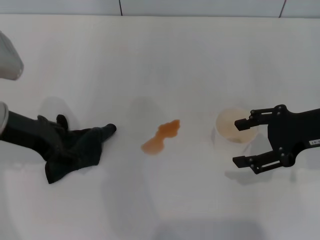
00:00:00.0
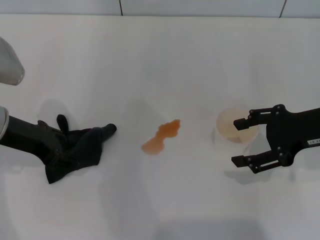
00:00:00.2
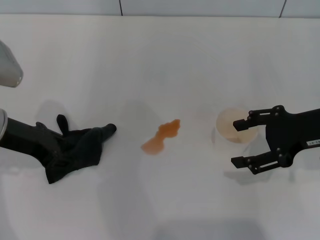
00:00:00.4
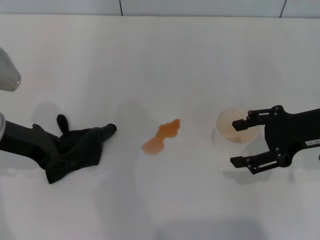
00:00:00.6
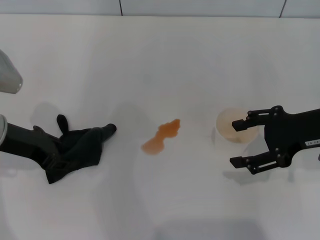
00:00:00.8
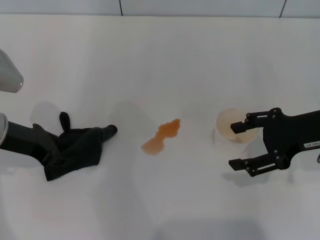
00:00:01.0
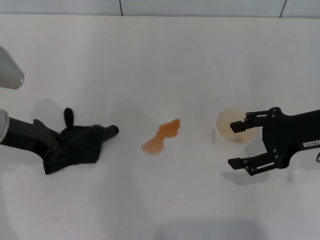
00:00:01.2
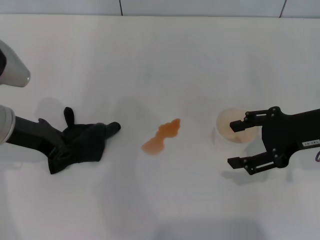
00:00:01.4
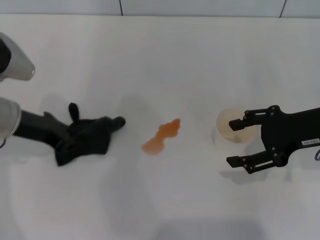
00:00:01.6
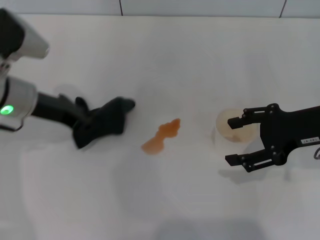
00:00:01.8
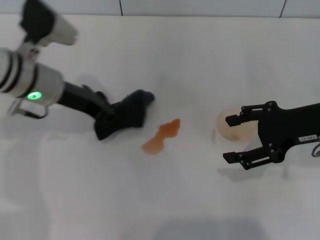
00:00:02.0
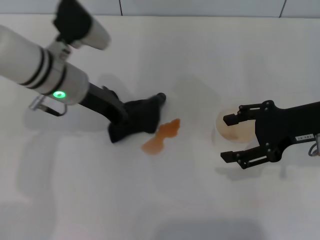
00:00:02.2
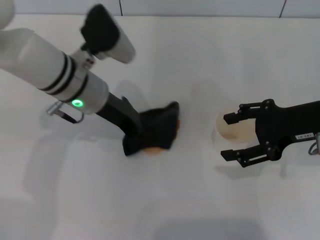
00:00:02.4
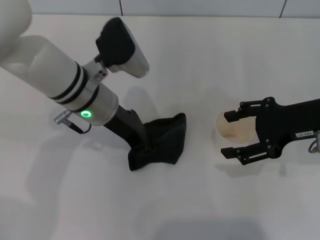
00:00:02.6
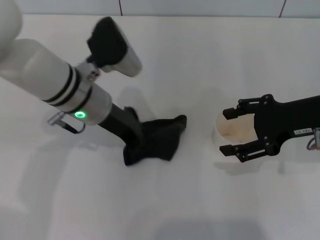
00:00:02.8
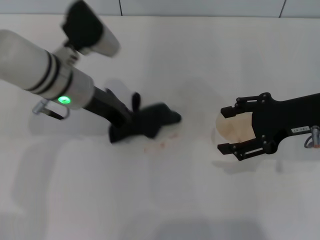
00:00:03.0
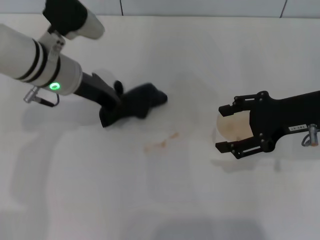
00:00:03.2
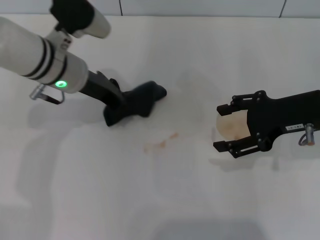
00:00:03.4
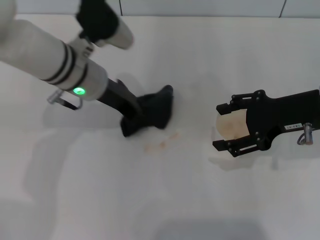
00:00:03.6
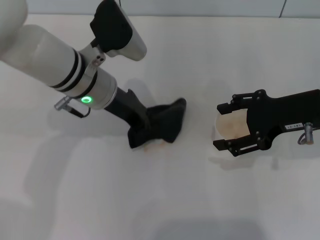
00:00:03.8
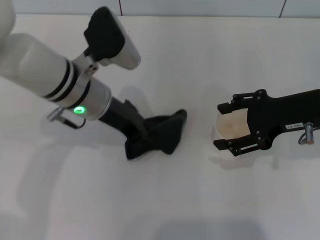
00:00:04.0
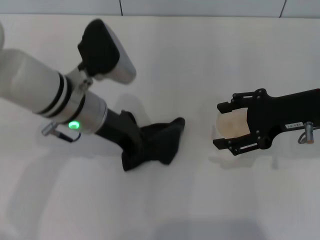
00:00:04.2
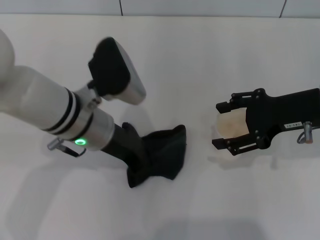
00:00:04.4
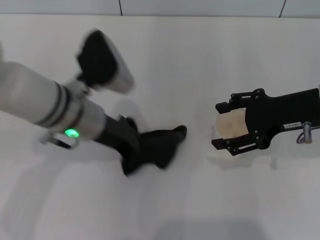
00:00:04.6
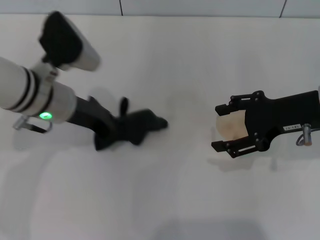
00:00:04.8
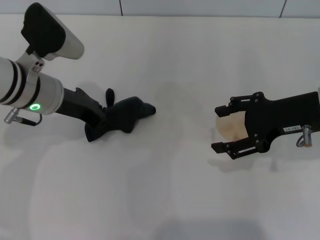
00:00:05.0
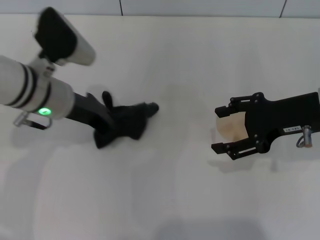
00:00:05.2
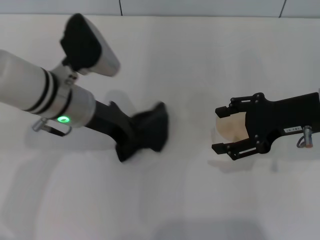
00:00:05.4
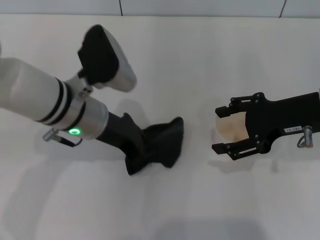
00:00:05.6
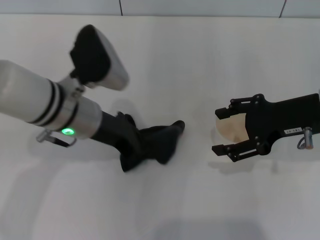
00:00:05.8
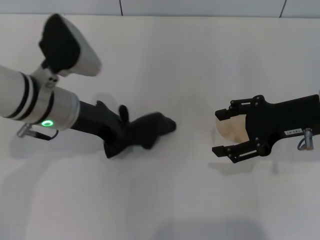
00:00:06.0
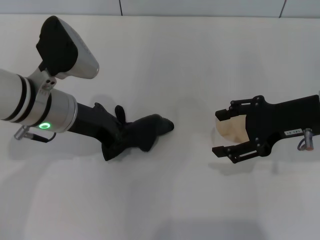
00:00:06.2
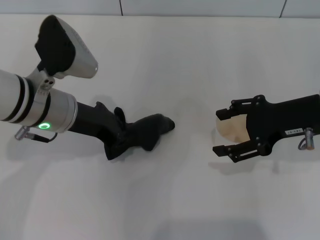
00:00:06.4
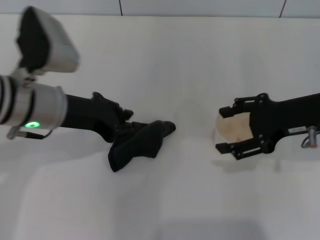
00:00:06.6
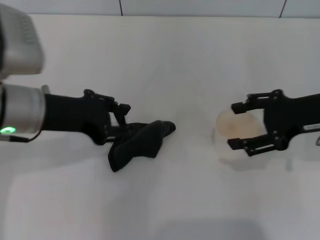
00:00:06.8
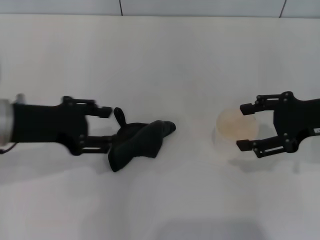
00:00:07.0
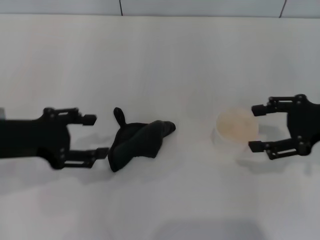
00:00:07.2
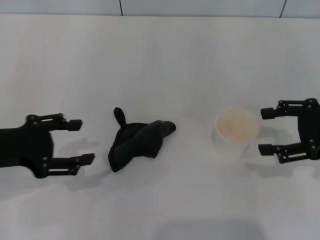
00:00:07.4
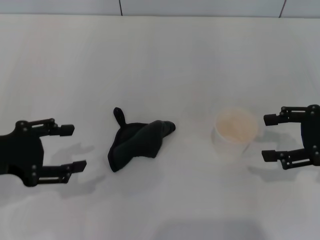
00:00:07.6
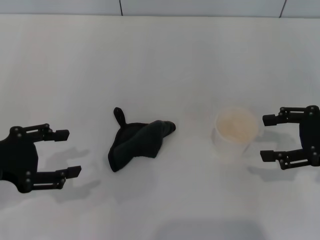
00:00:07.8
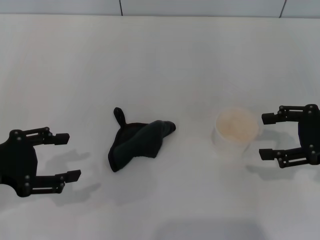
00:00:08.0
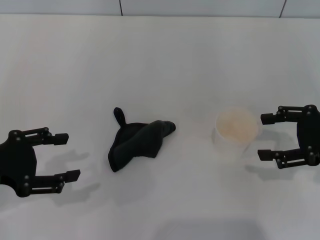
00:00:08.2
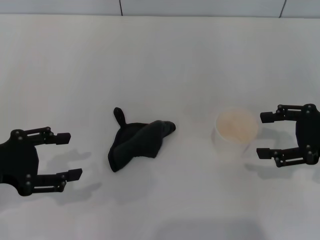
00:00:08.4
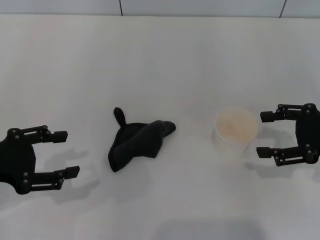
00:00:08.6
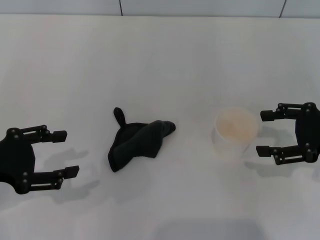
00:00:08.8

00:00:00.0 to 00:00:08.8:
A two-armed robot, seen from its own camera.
Step, 00:00:01.2 to 00:00:05.6: Wipe the stains off the table with the left gripper.
Step, 00:00:05.8 to 00:00:06.8: Place the rag on the table with the left gripper.
00:00:00.0 to 00:00:01.4: The left gripper closes up.
00:00:01.4 to 00:00:03.0: The left gripper travels to the right by some 10 cm.
00:00:03.0 to 00:00:04.4: The left gripper moves backward, some 5 cm.
00:00:05.8 to 00:00:07.4: The left gripper moves to the left and backward, about 15 cm, and opens; the right gripper moves to the right, some 10 cm.
00:00:07.4 to 00:00:08.8: The grippers move only a little.
